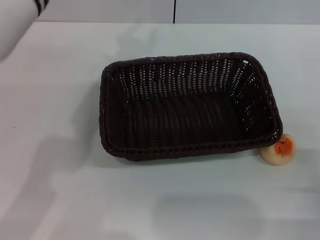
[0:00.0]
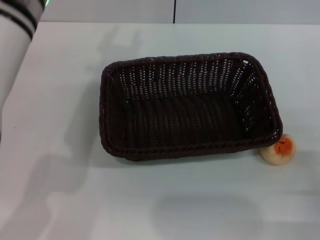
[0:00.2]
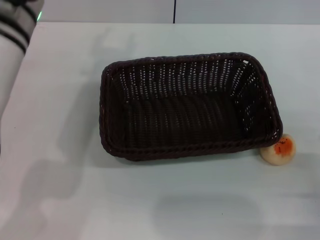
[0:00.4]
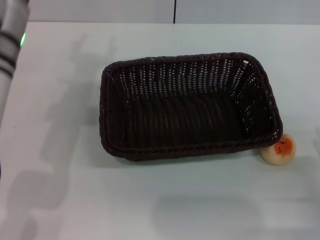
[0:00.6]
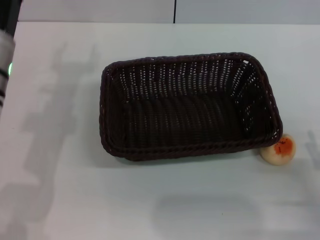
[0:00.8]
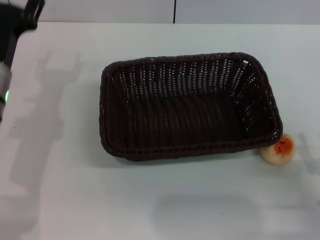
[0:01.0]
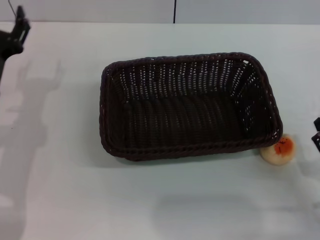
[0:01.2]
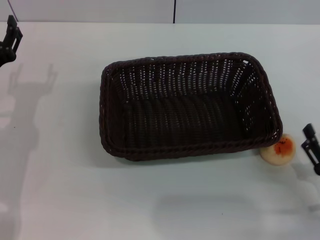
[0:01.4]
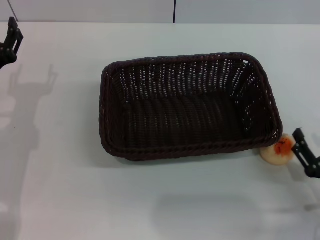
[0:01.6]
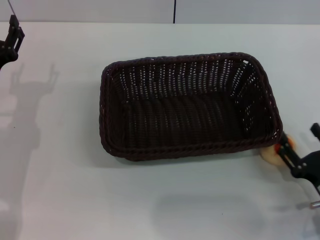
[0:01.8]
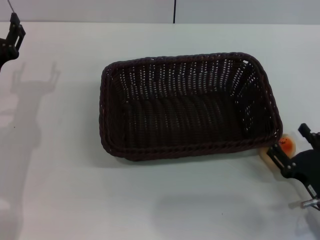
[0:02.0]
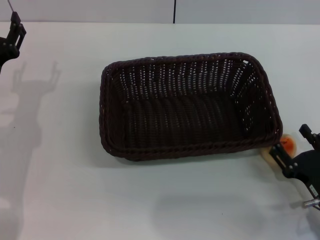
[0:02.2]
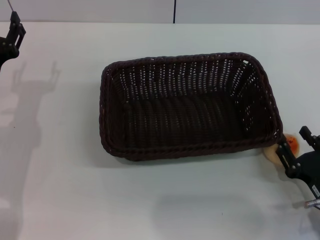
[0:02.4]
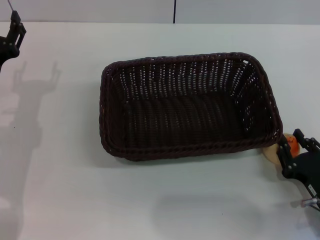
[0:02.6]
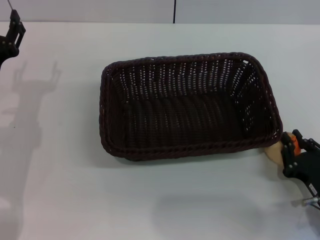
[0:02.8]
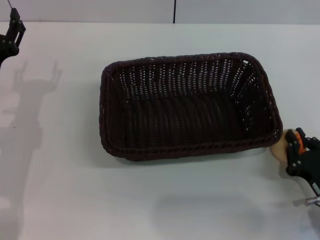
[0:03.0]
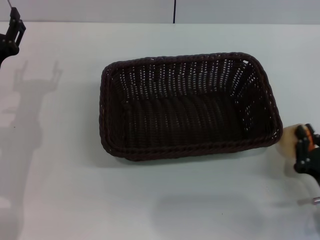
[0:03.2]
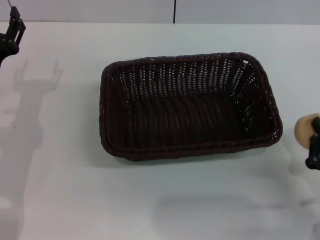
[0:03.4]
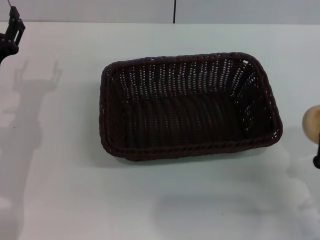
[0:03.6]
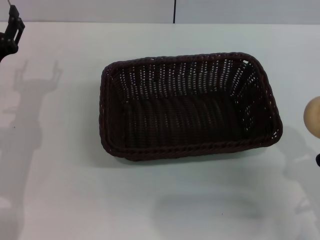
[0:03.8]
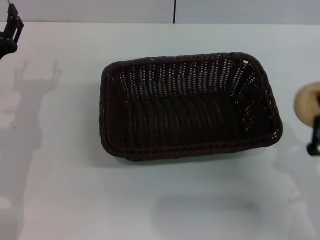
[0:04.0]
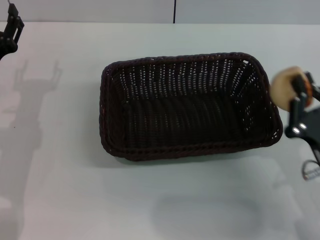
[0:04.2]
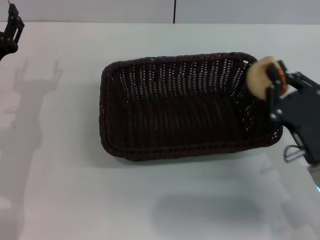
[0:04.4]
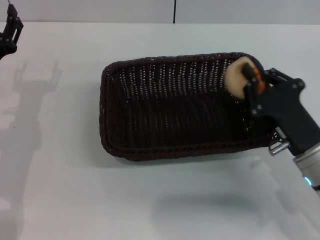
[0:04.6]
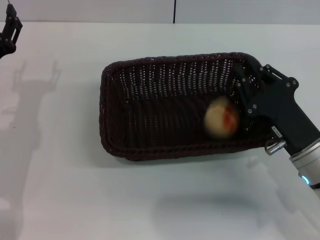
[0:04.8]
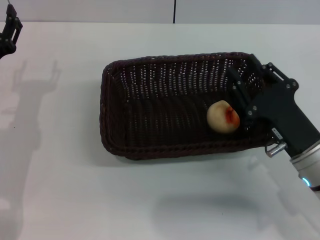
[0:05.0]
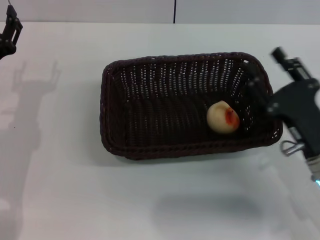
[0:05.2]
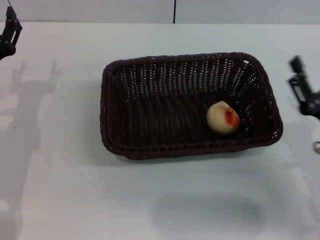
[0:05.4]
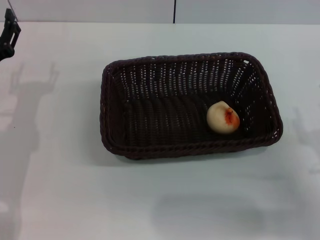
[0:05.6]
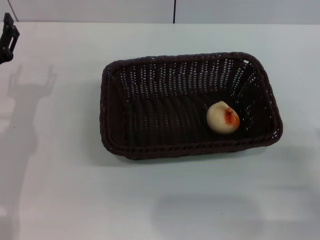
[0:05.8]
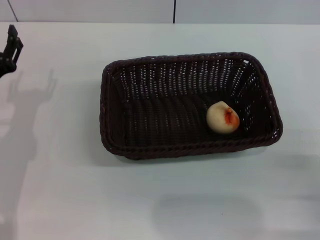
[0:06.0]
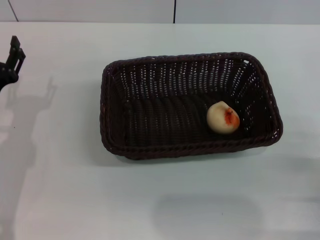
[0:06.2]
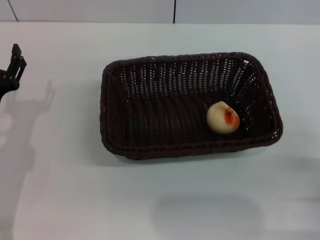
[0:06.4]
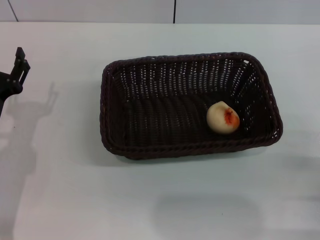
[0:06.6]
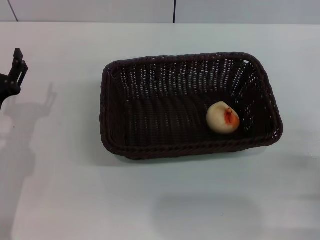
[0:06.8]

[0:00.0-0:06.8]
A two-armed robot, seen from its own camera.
Step, 0:00.0 to 0:03.4: Pick up the egg yolk pastry with the right gripper.
Step, 0:03.6 to 0:05.2: Place the egg yolk pastry into the basket with the right gripper.
0:00.0 to 0:01.4: The left gripper is displaced downward and to the left by roughly 25 cm, and opens up.
0:01.4 to 0:02.8: The right gripper closes.
0:02.8 to 0:04.0: The right gripper moves upward, about 5 cm, and closes up.
0:04.0 to 0:05.4: The right gripper moves forward, about 5 cm, and opens.
0:05.4 to 0:06.8: The left gripper moves about 5 cm. Meanwhile the right gripper is displaced to the right and backward by approximately 10 cm.

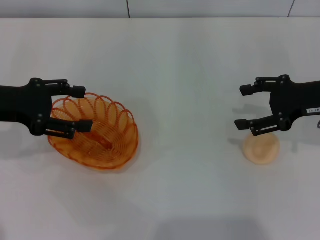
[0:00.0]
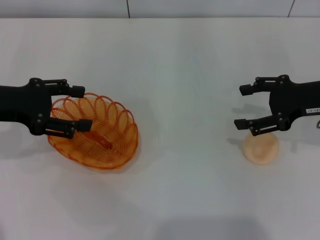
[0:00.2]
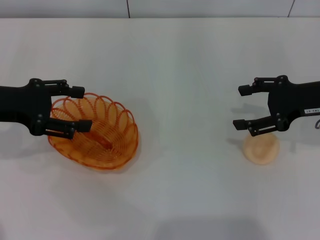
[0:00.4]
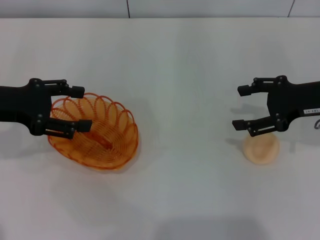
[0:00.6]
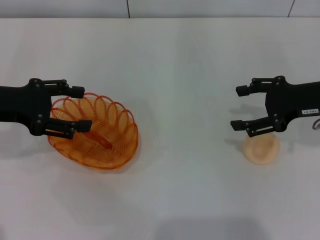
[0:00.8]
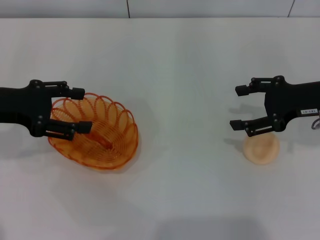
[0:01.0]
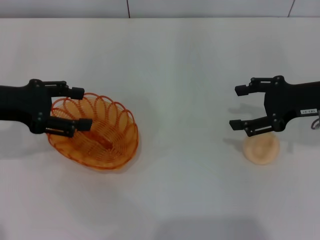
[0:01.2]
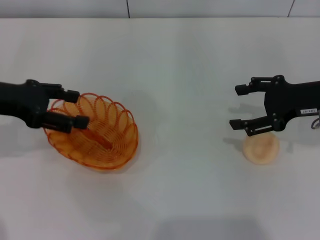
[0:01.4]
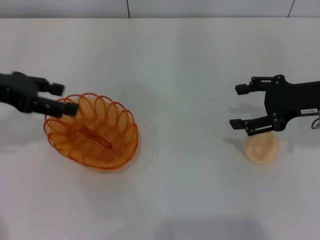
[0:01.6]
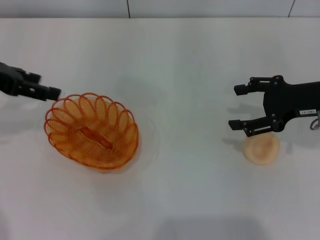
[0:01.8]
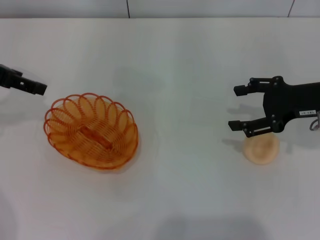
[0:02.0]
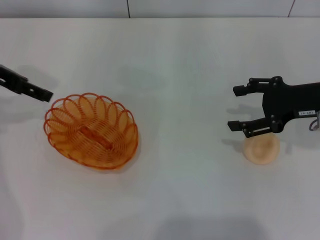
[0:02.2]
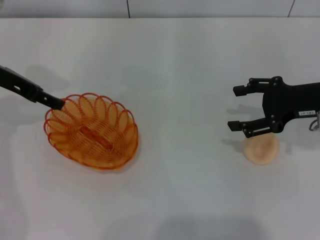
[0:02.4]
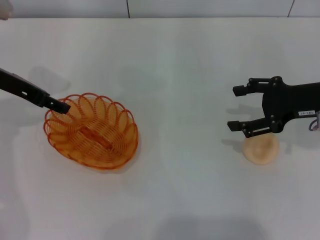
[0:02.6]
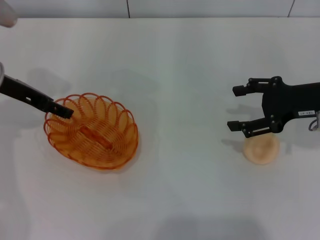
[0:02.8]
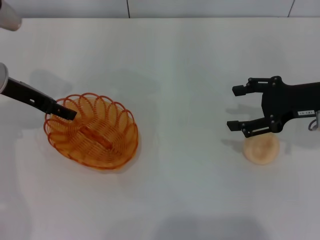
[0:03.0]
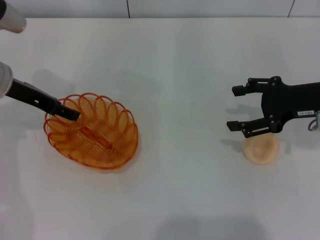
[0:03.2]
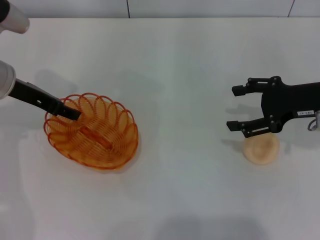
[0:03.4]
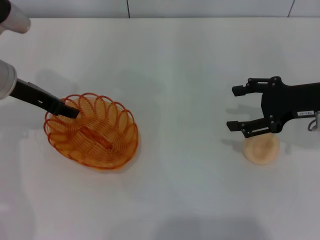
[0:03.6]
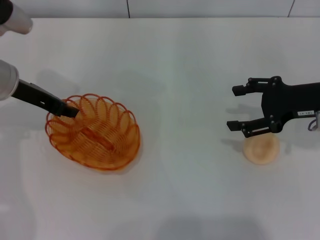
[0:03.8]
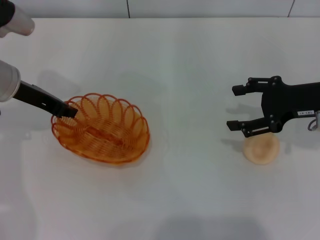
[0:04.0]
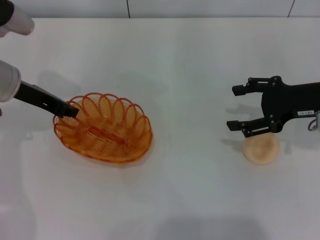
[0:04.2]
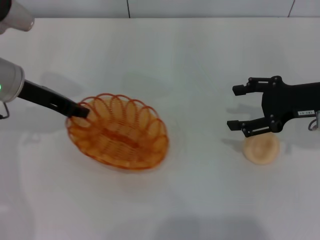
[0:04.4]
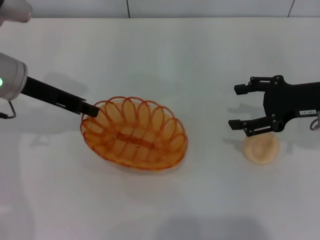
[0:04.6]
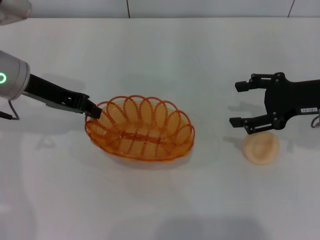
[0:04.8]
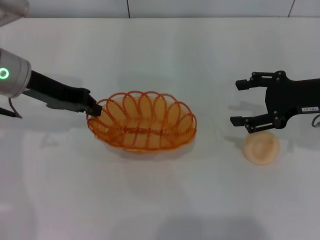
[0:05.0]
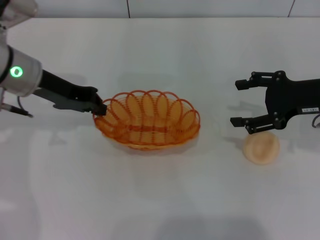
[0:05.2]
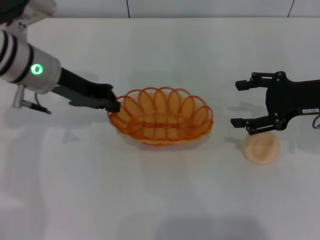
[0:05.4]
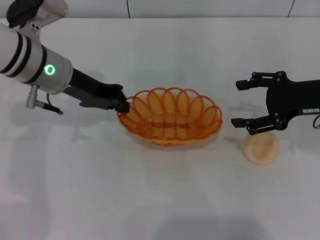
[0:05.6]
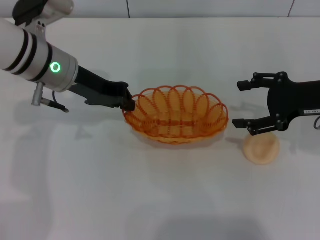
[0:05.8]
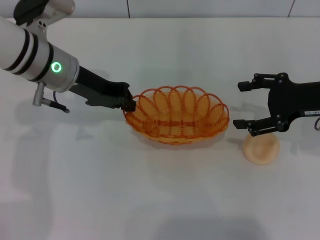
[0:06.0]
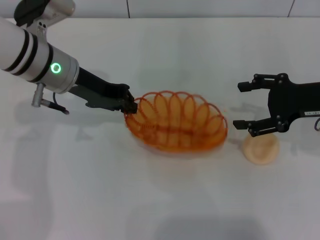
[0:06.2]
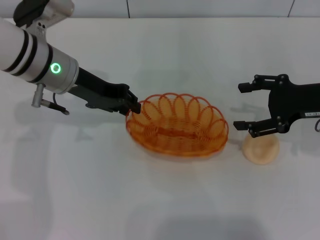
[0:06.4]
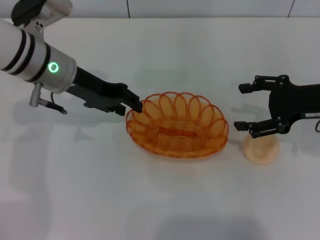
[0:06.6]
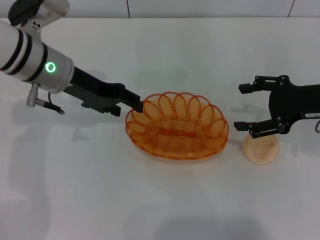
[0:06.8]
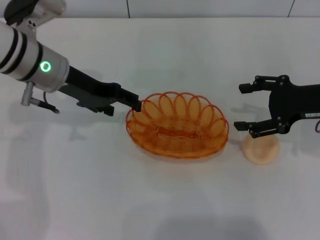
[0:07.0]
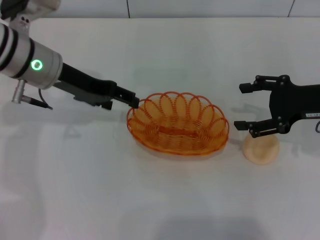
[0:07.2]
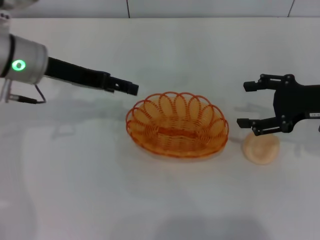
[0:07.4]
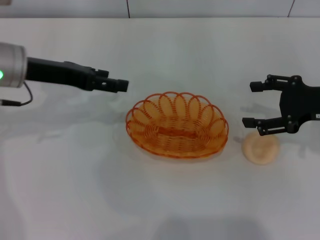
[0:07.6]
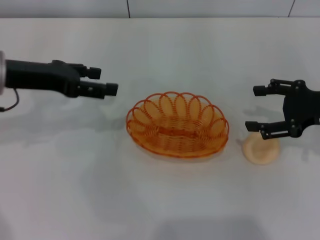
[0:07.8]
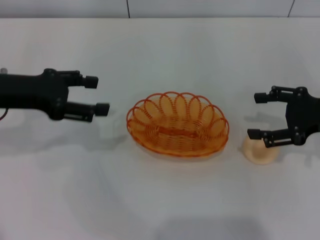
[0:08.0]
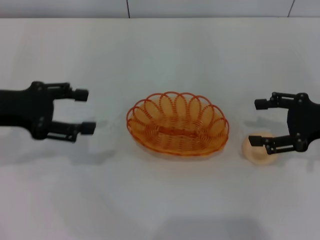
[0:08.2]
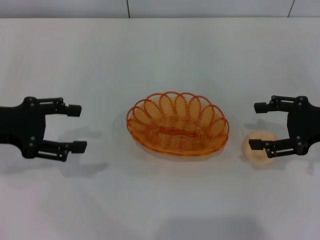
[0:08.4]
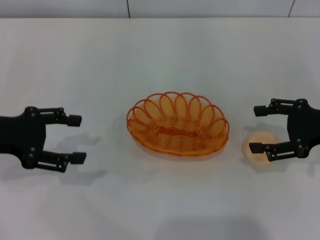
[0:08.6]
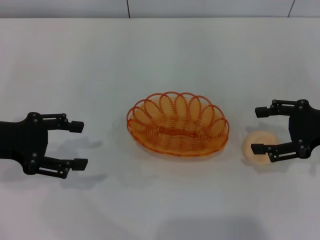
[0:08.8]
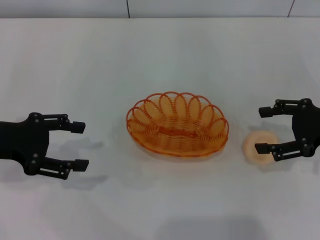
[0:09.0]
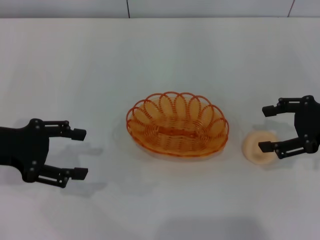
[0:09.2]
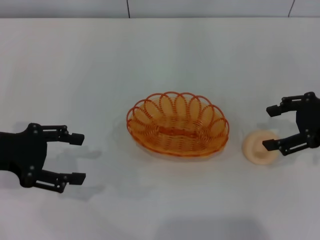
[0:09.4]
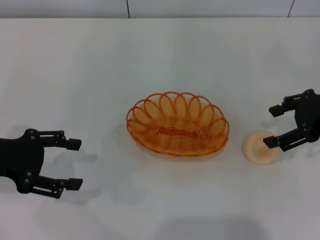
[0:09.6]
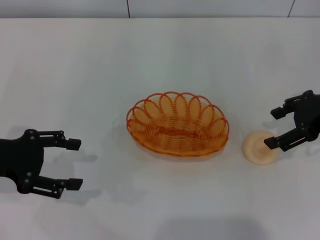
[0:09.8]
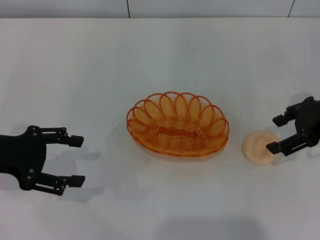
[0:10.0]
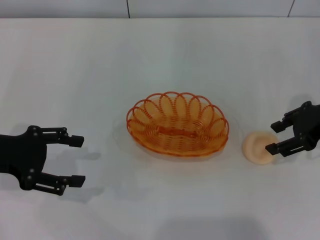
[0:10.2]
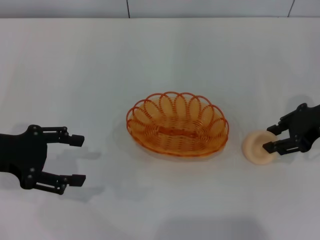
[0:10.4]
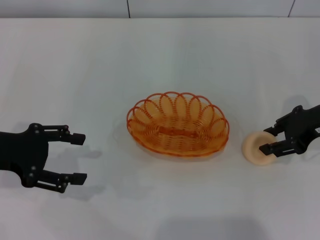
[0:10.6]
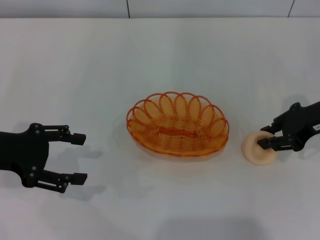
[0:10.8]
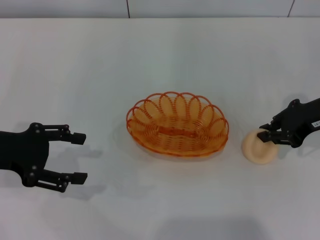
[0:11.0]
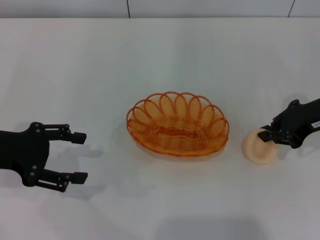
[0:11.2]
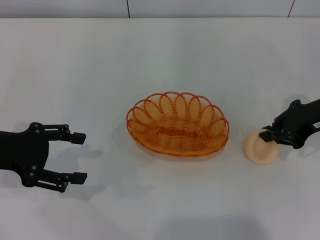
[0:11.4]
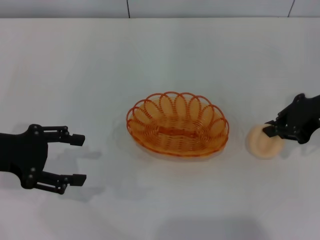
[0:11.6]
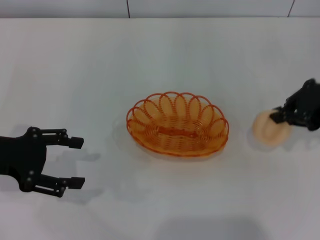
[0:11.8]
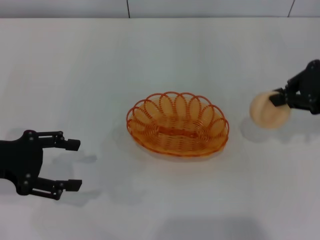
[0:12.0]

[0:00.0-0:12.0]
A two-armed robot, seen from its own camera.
Step, 0:00.0 to 0:05.2: Pick up the basket with the left gripper.
Step, 0:05.4 to 0:07.2: Place the basket in the center of view with the left gripper.
Step, 0:07.6 to 0:11.8: Pick up the egg yolk pastry with the right gripper.
0:01.6 to 0:03.0: The left gripper shifts by some 10 cm.
0:03.0 to 0:04.4: The left gripper closes.
0:04.4 to 0:06.0: The left gripper travels to the right by about 5 cm.
0:06.0 to 0:07.6: The left gripper moves to the left, roughly 5 cm, and opens its fingers.
0:07.6 to 0:09.0: The left gripper shifts approximately 10 cm backward and to the left.
0:09.0 to 0:10.4: The right gripper moves roughly 5 cm.
0:10.4 to 0:12.0: The right gripper goes roughly 5 cm upward, and closes up.

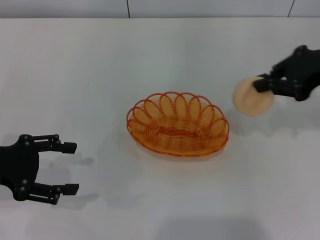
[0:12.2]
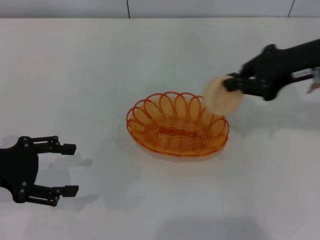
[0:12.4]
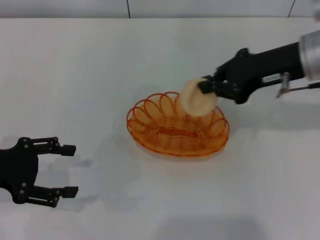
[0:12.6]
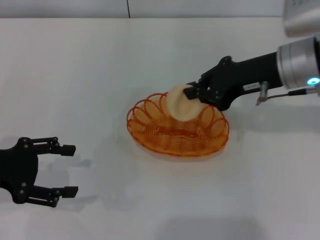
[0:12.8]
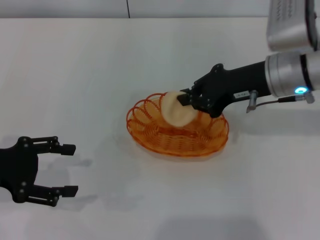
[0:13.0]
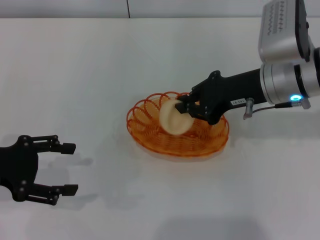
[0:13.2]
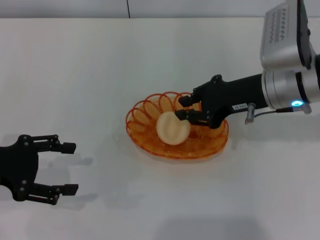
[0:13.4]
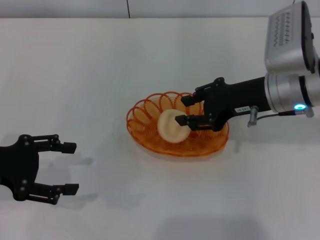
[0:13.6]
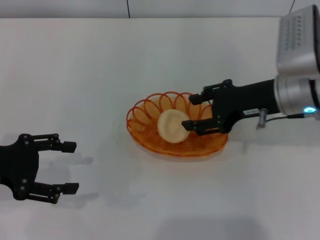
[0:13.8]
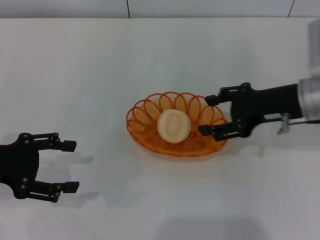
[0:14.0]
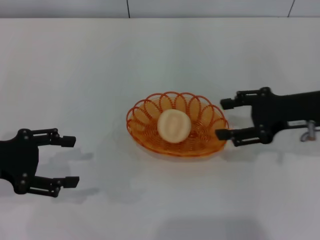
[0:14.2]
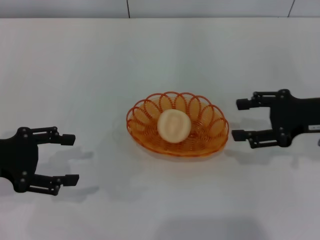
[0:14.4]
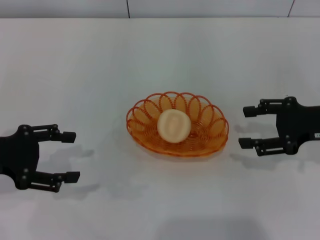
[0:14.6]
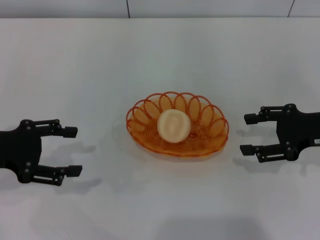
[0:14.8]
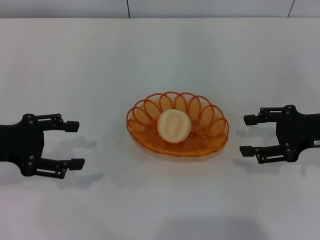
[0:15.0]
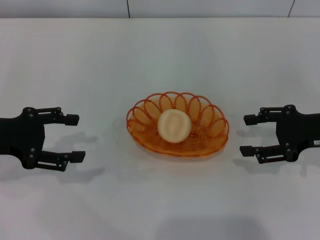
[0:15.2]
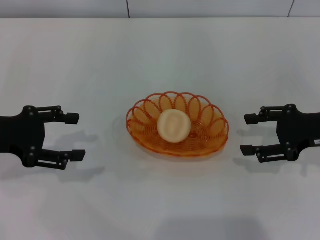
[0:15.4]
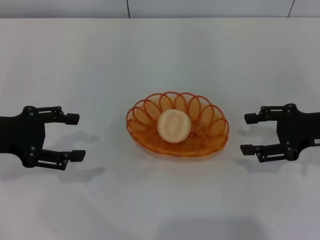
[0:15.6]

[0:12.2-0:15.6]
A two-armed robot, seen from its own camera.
Step, 0:12.2 to 0:13.8: Place the egg yolk pastry into the basket with the right gripper.
0:12.2 to 0:13.8: The right gripper shifts approximately 10 cm to the left and downward, and opens up.
0:13.8 to 0:15.6: The right gripper travels to the right by roughly 10 cm.
